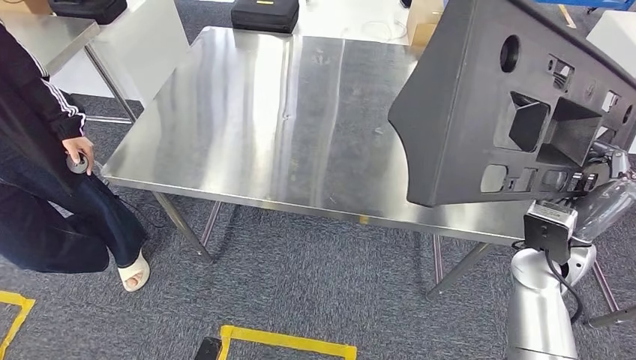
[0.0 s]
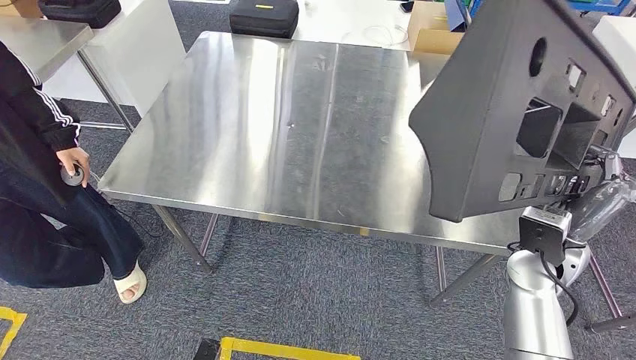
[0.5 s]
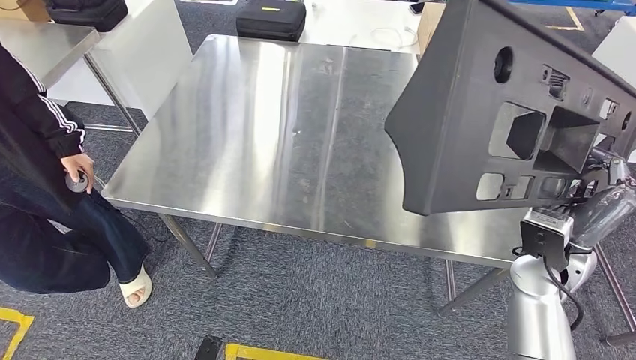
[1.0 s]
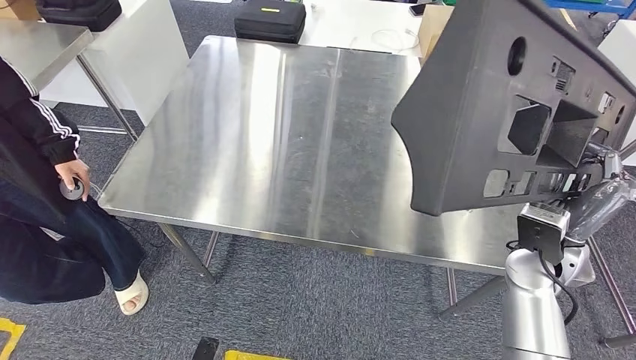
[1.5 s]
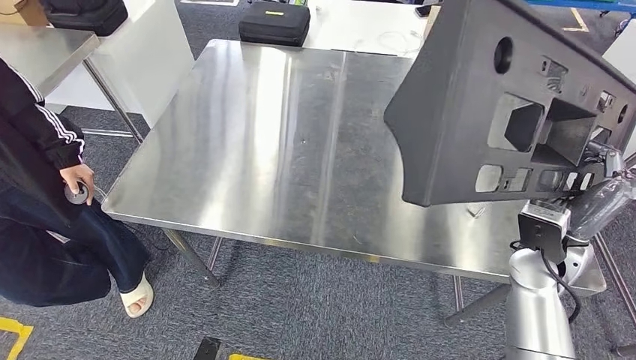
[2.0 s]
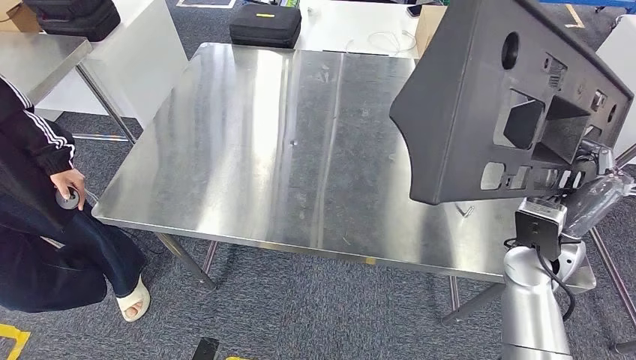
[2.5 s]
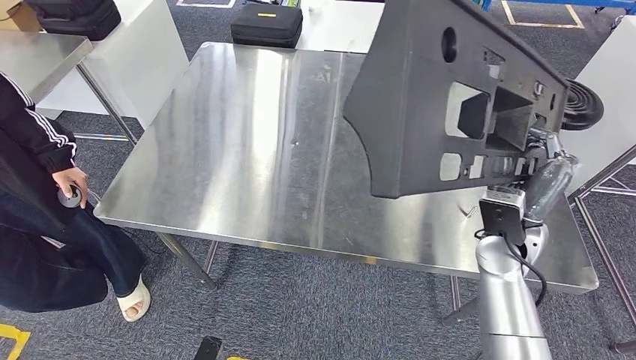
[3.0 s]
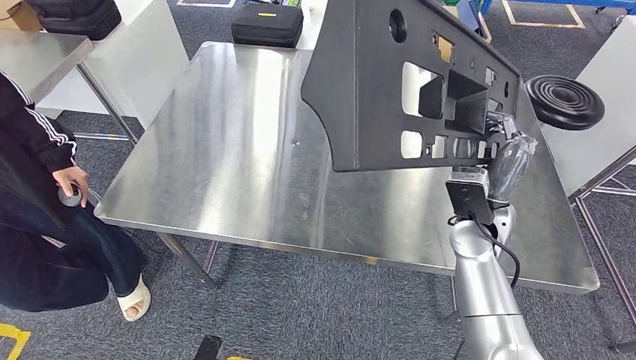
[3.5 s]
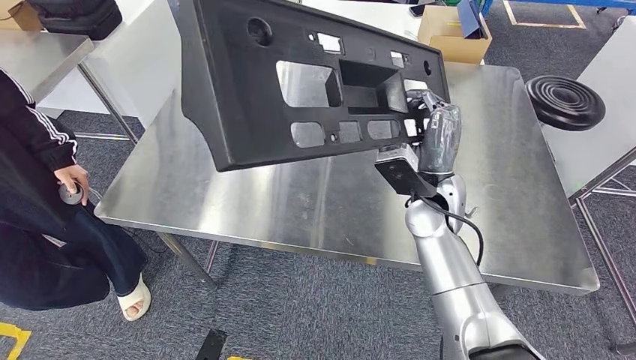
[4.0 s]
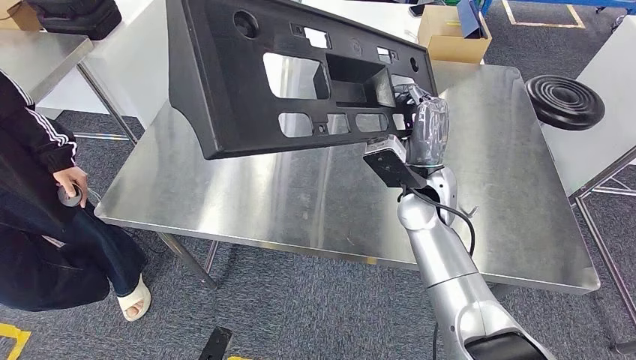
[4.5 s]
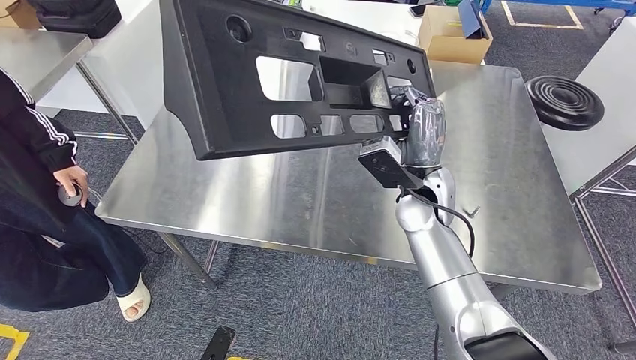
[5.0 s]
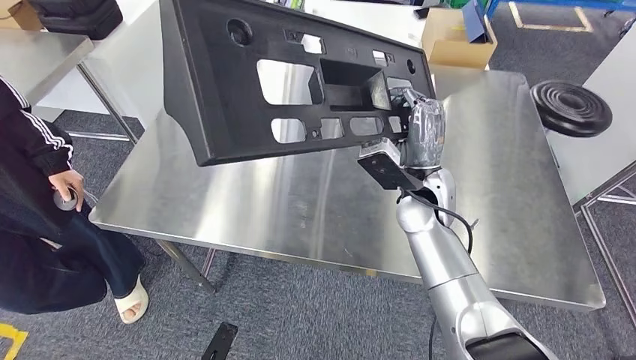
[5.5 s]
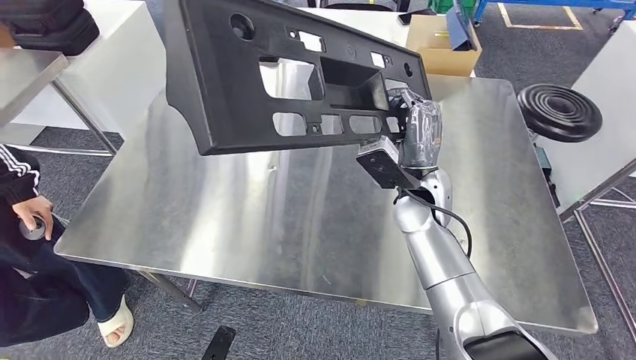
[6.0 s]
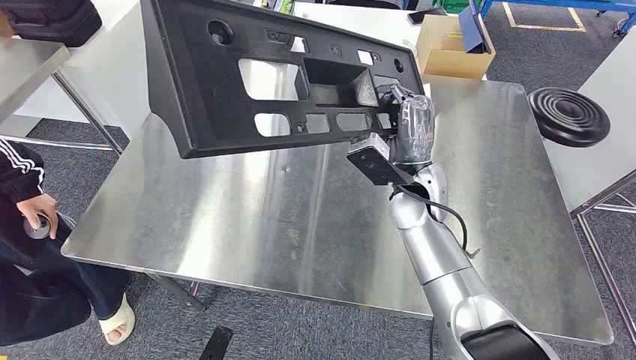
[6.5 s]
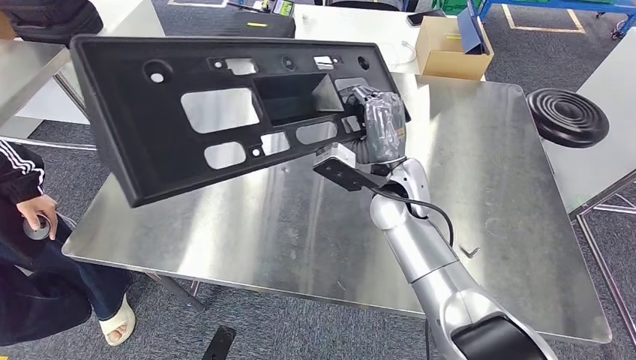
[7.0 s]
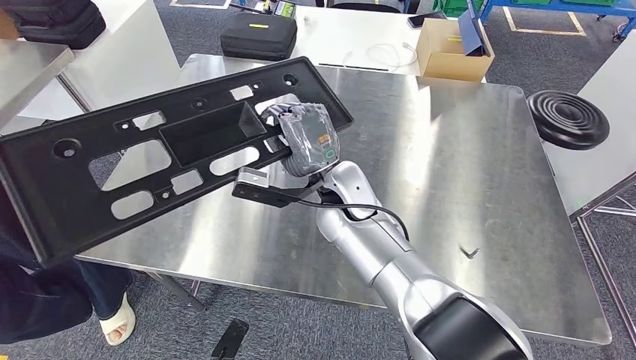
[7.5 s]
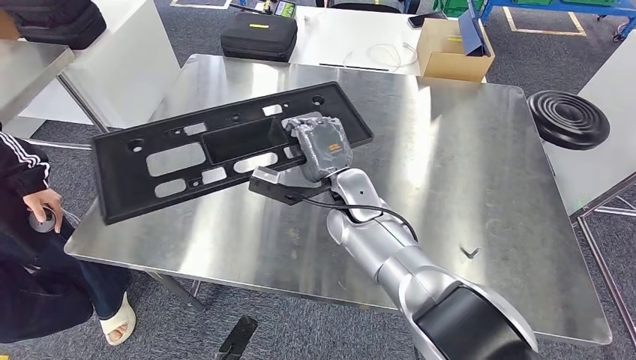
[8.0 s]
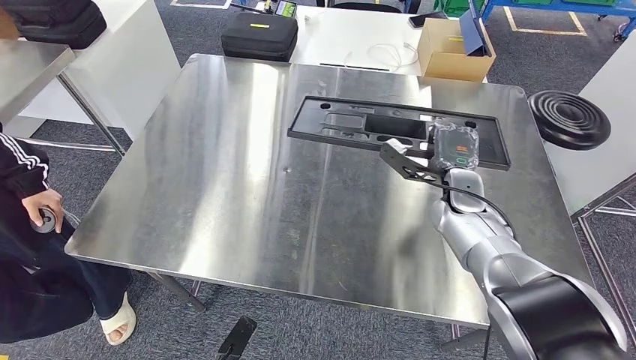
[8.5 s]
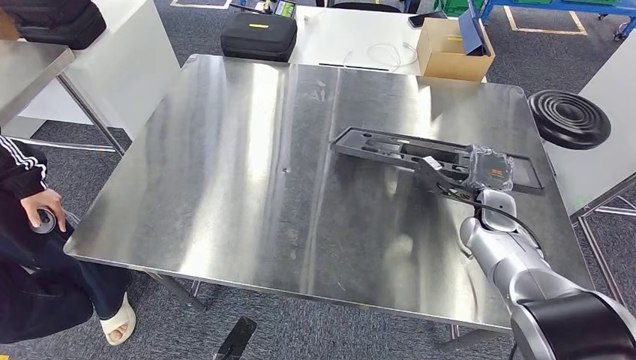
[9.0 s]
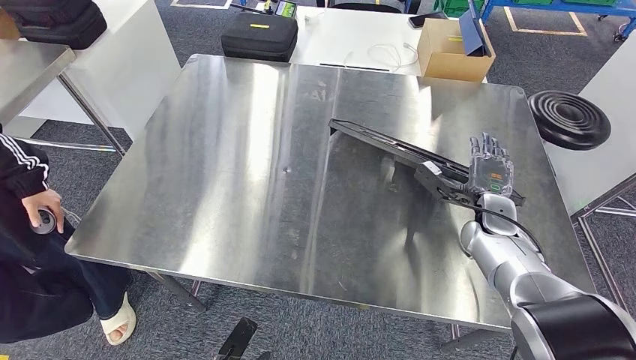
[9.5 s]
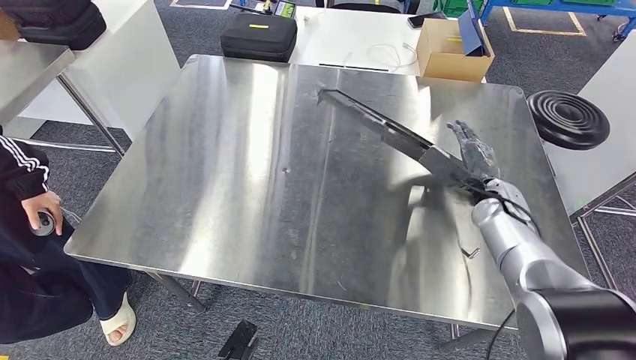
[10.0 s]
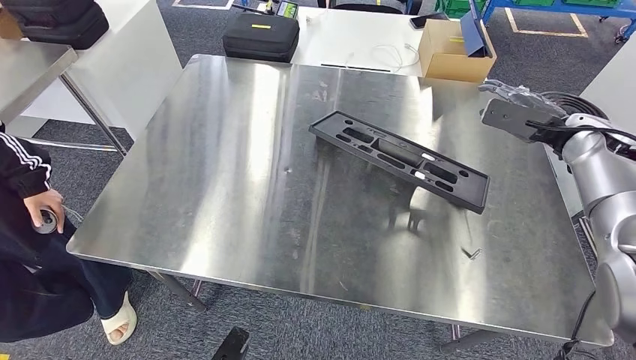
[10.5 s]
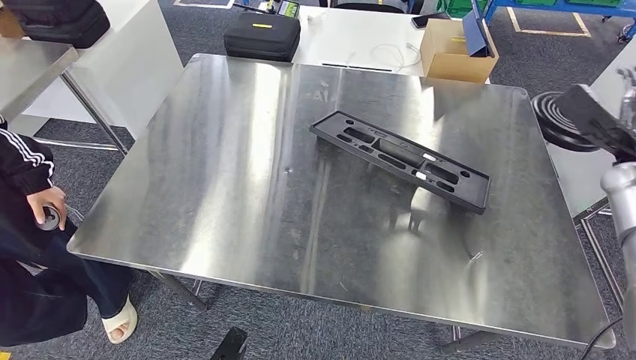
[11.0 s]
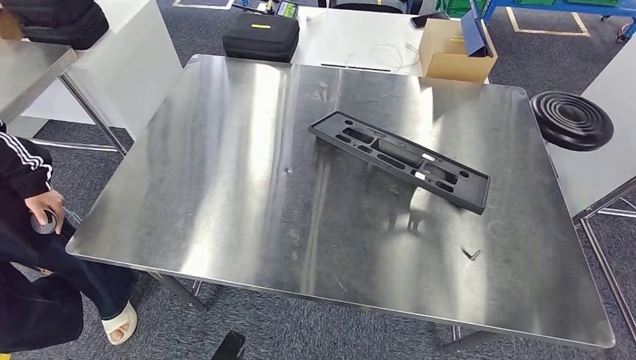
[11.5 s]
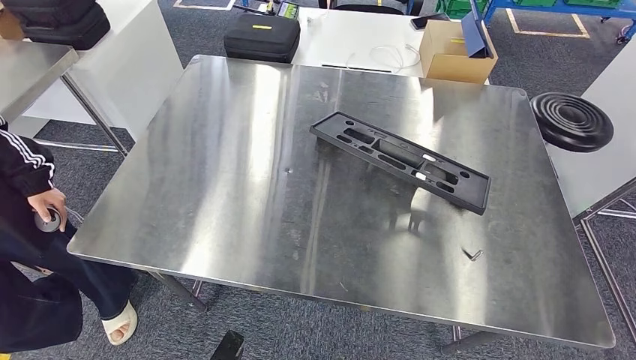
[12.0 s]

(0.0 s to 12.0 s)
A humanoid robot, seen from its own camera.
Step, 0.0 s - 11.0 s: Insert the large material into the corresponding slot on the workbench.
10.0 s - 12.0 s: The right hand goes approximately 35 cm to the right and backward.

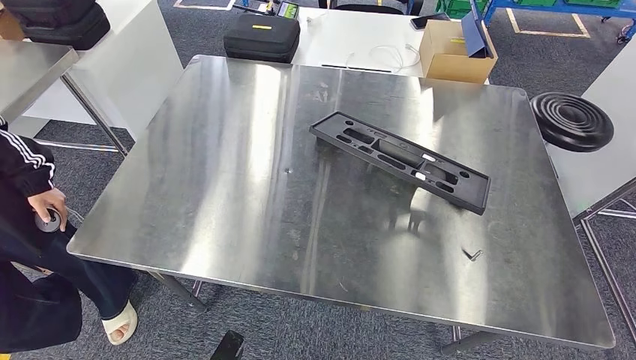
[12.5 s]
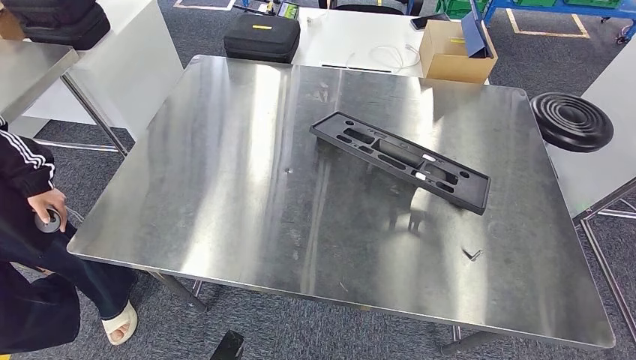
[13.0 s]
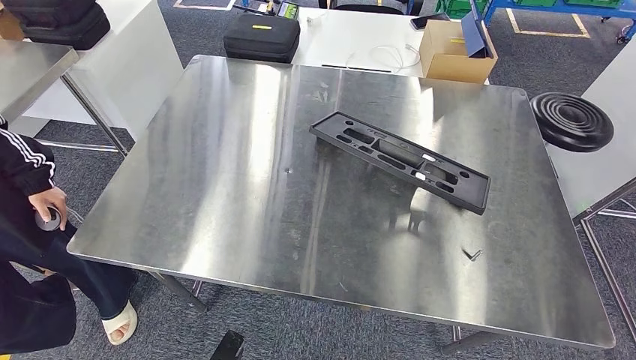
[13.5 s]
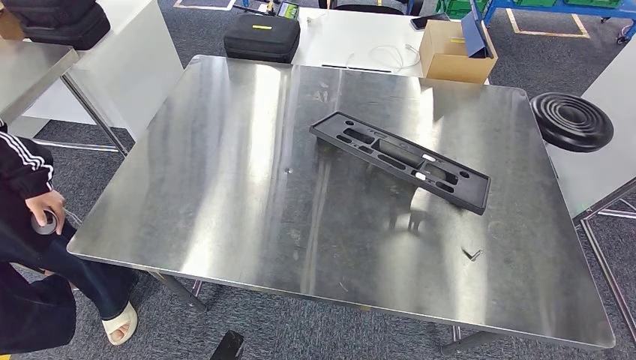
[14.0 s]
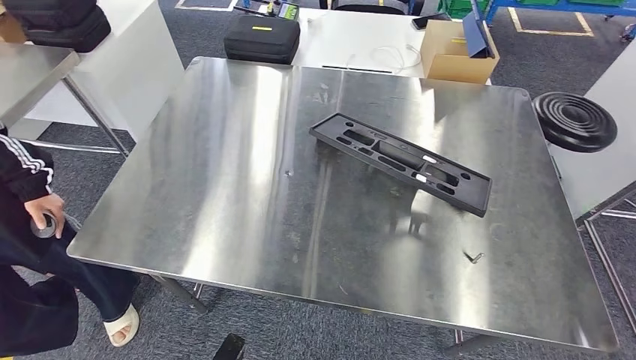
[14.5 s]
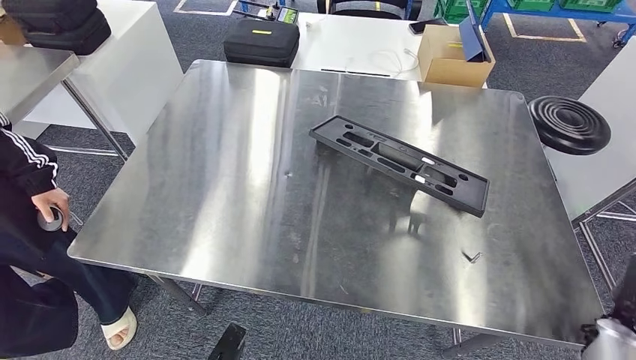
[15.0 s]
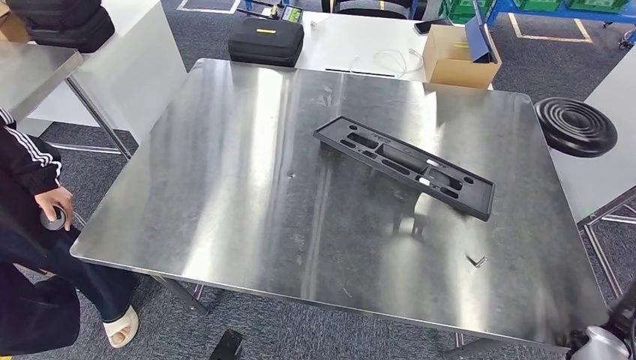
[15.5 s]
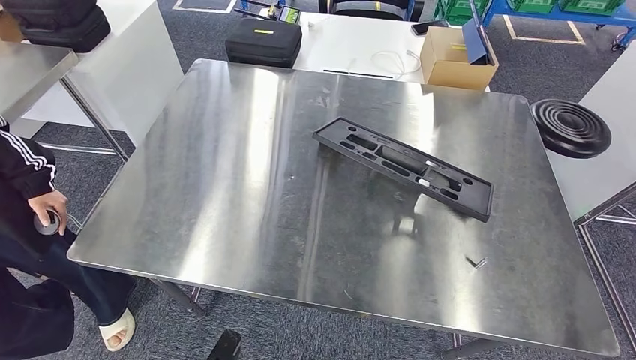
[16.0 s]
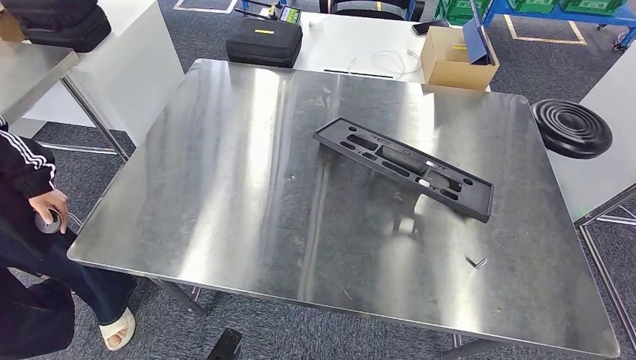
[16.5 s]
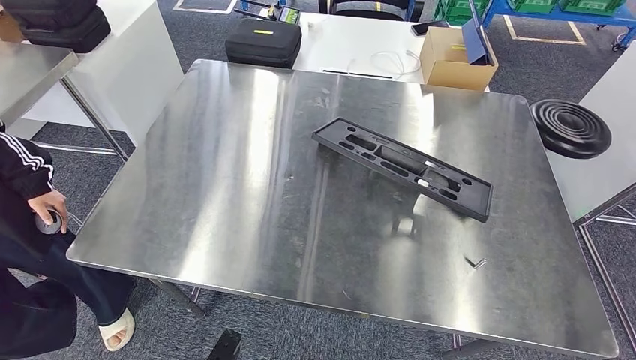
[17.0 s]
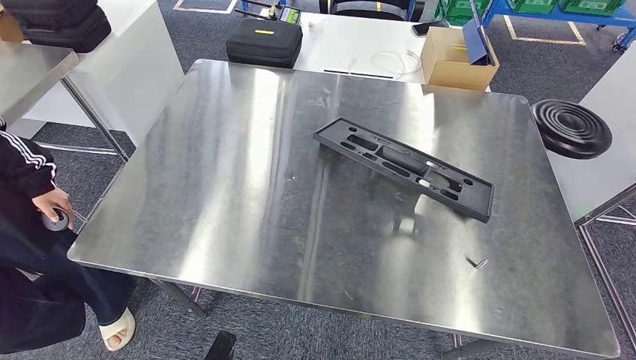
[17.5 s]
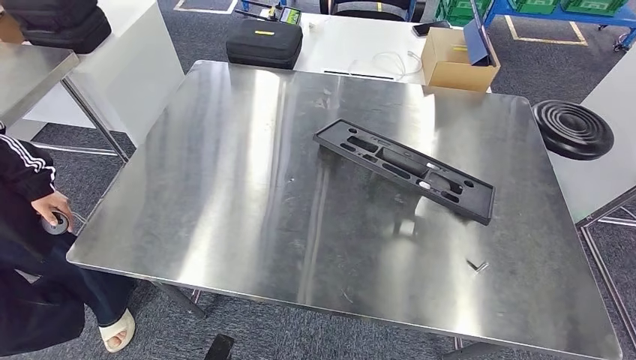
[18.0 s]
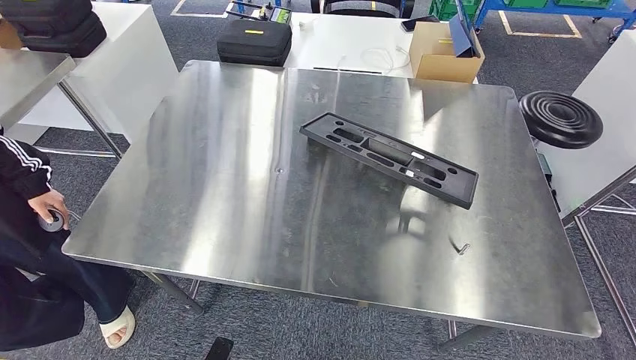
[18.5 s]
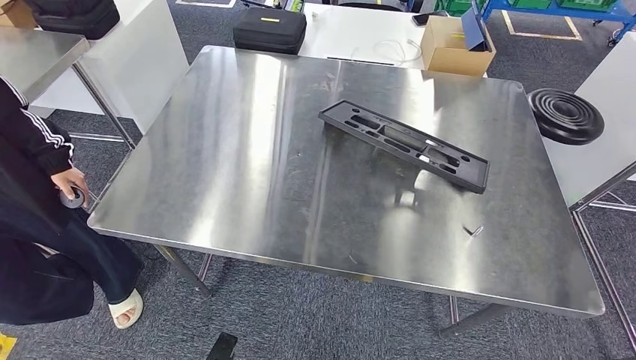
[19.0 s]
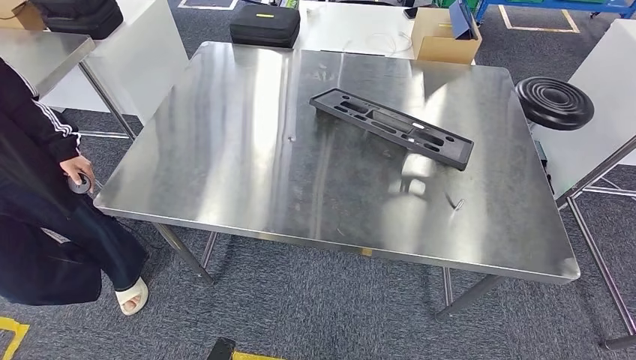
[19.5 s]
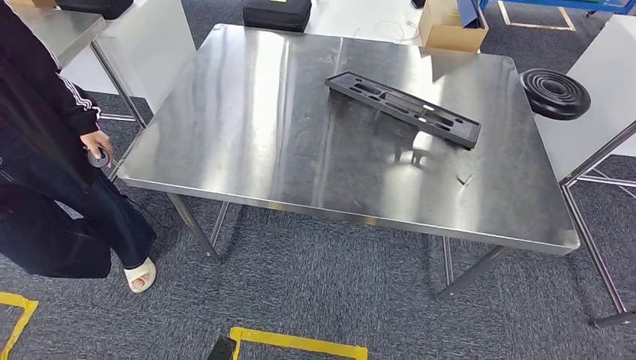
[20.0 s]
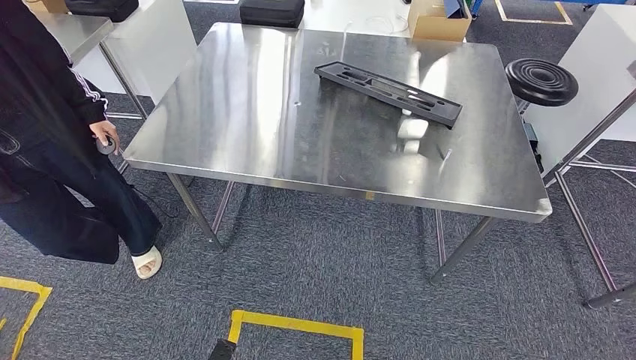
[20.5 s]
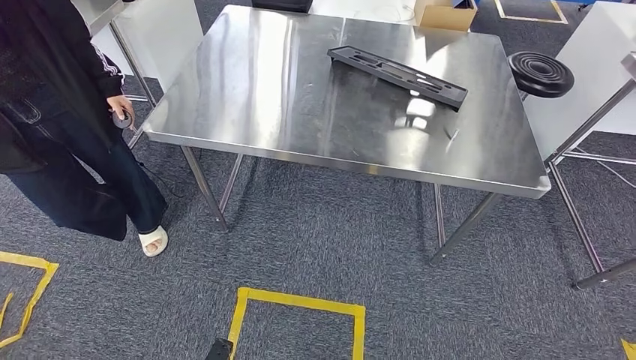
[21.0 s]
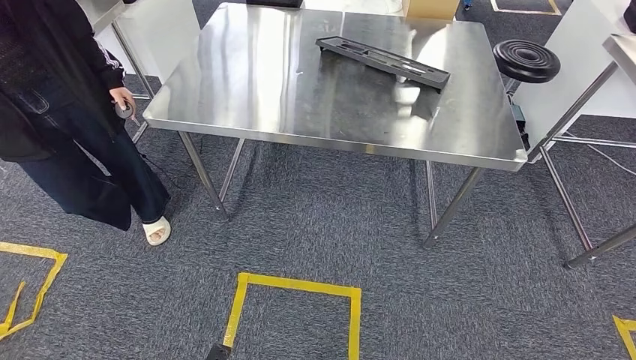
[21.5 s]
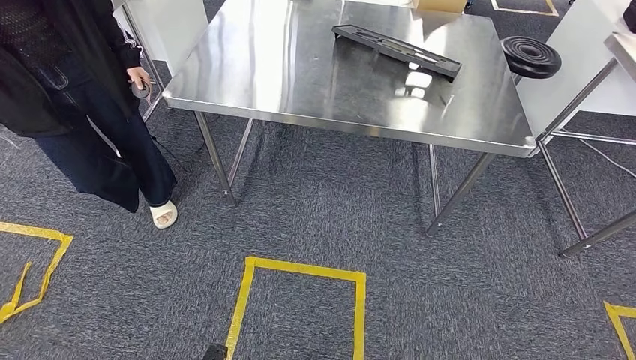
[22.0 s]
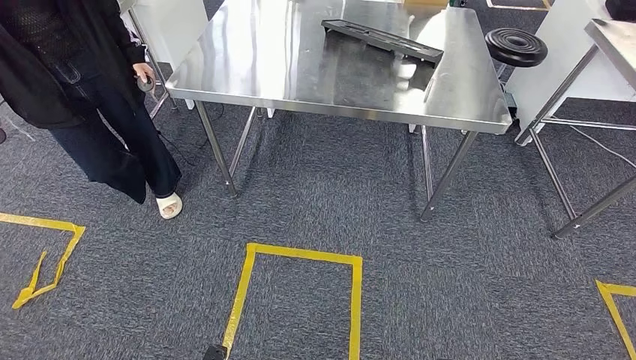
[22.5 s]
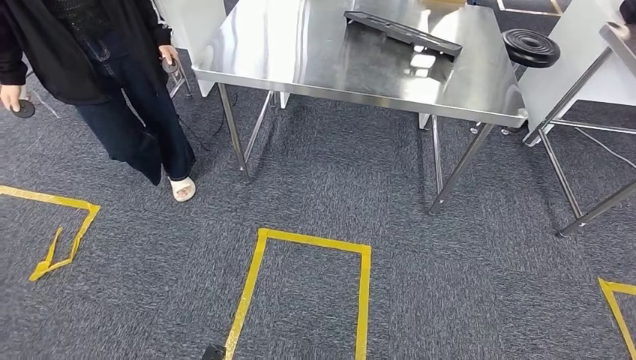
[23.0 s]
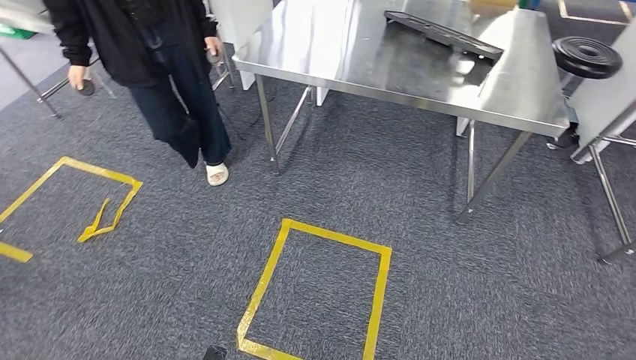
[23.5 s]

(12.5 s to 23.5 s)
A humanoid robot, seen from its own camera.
12.5 s - 14.5 s: The right hand heads downward, backward and to the left, covering roughly 20 cm.
14.5 s - 16.0 s: The right hand travels forward and back again, about 10 cm each way.
16.0 s - 18.0 s: The right hand shifts some 30 cm to the left.
